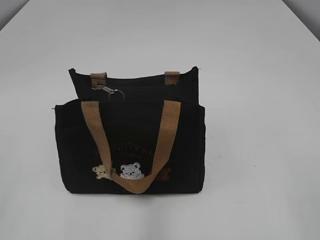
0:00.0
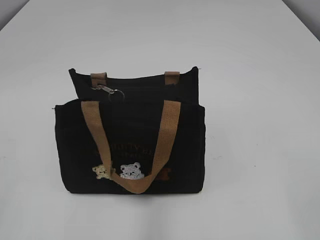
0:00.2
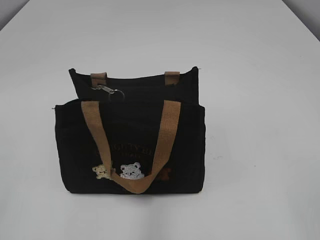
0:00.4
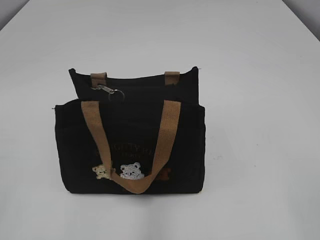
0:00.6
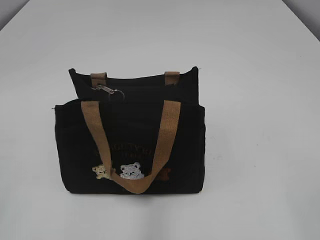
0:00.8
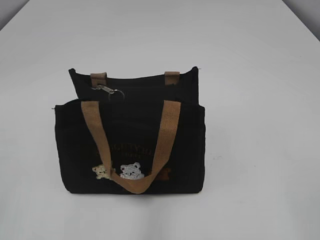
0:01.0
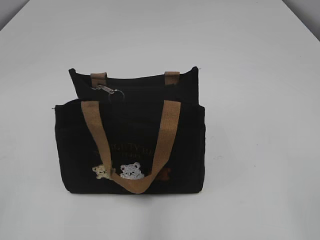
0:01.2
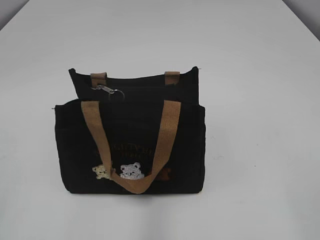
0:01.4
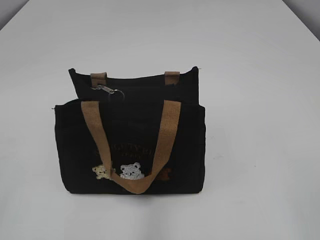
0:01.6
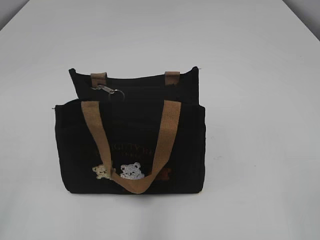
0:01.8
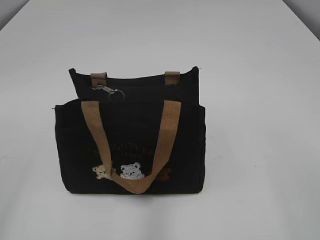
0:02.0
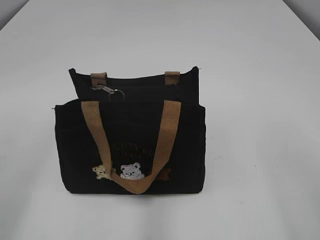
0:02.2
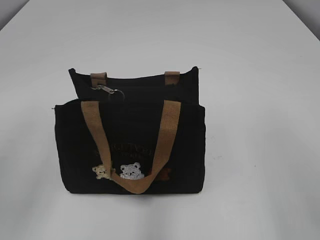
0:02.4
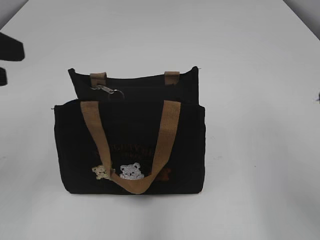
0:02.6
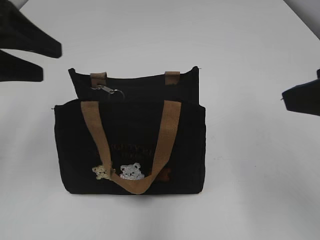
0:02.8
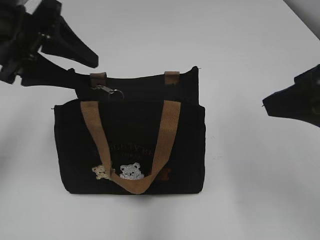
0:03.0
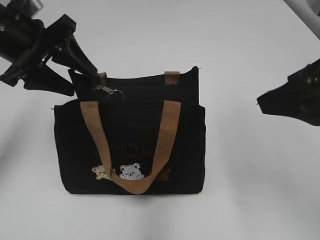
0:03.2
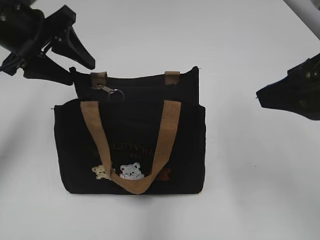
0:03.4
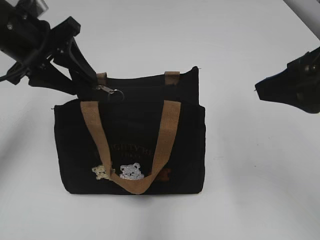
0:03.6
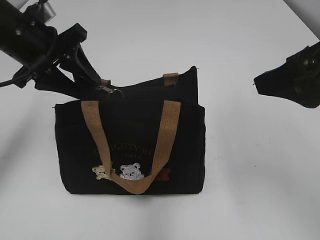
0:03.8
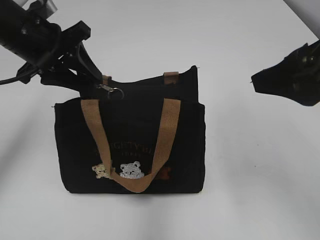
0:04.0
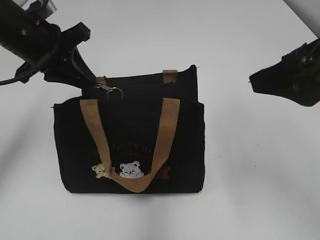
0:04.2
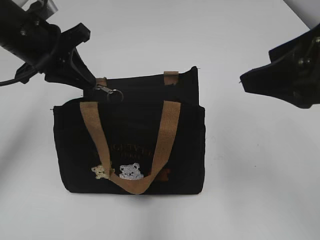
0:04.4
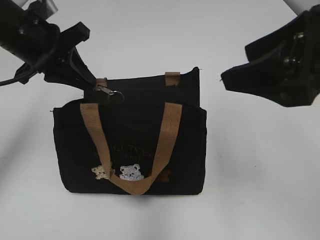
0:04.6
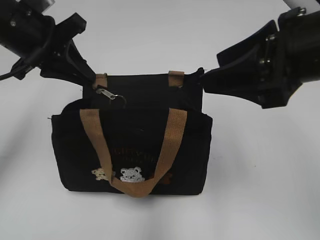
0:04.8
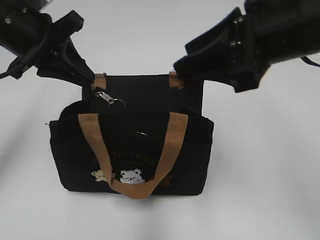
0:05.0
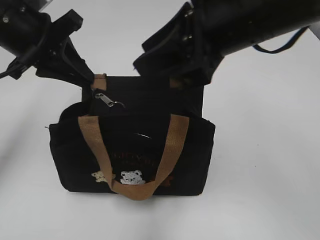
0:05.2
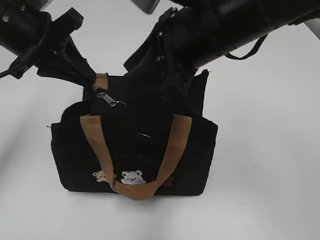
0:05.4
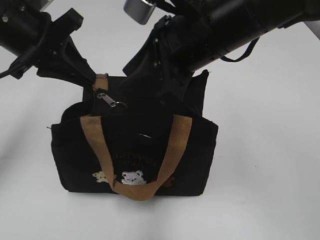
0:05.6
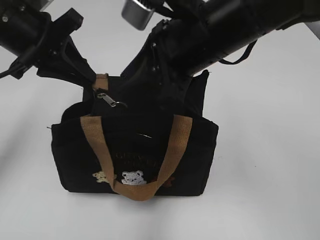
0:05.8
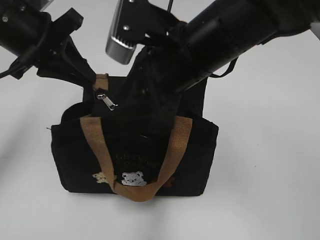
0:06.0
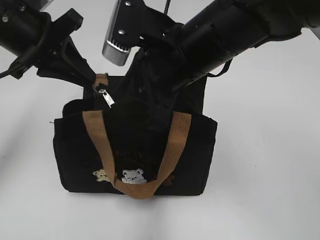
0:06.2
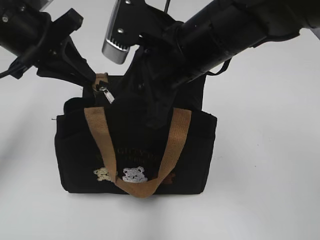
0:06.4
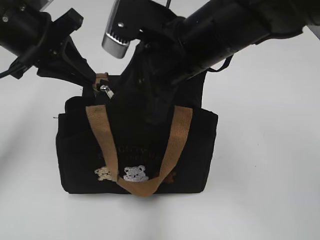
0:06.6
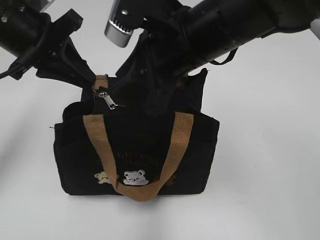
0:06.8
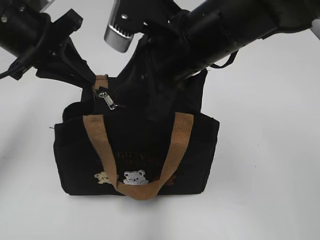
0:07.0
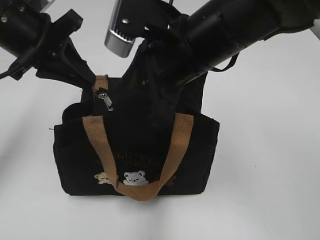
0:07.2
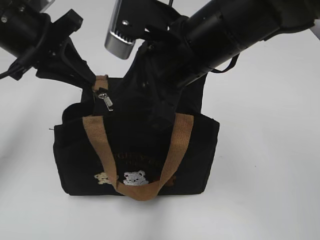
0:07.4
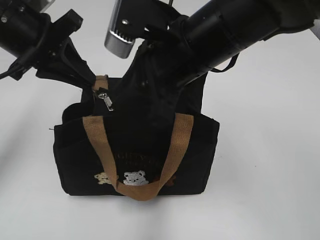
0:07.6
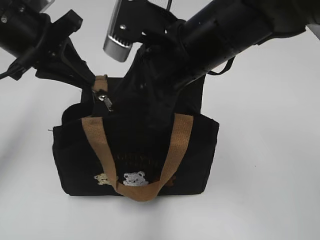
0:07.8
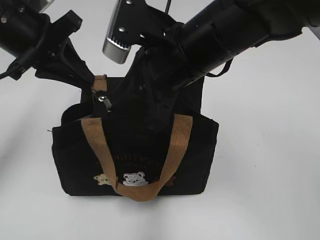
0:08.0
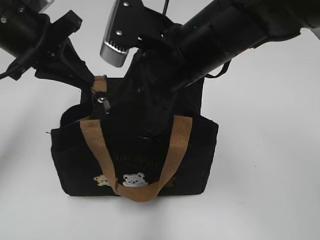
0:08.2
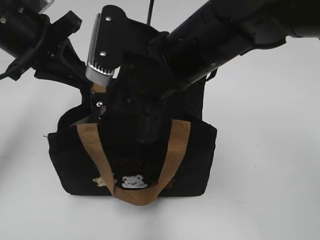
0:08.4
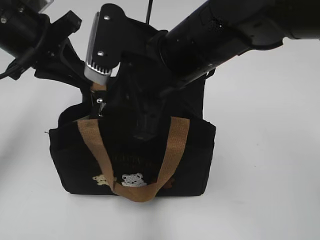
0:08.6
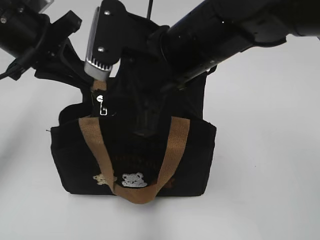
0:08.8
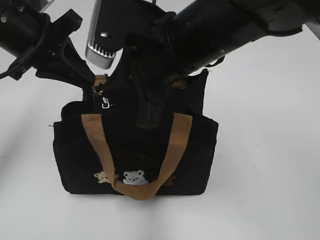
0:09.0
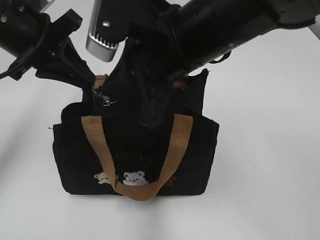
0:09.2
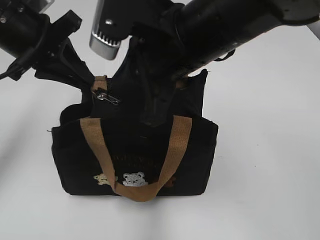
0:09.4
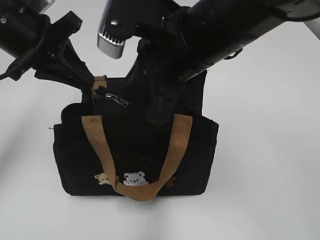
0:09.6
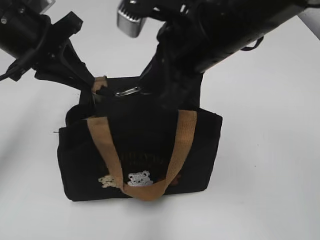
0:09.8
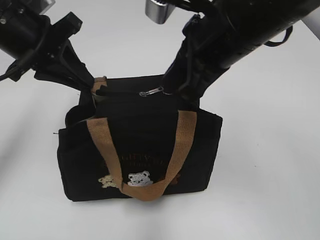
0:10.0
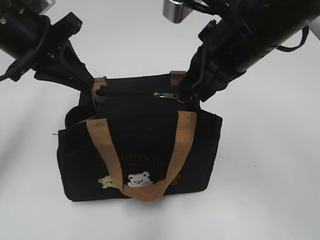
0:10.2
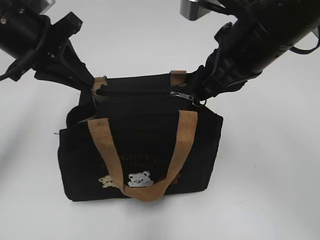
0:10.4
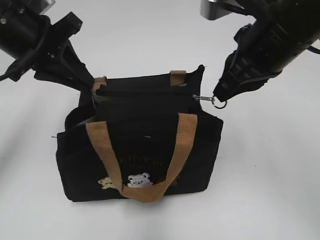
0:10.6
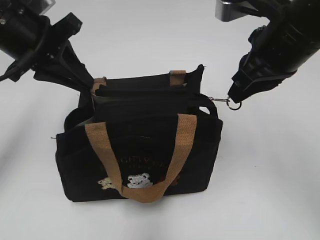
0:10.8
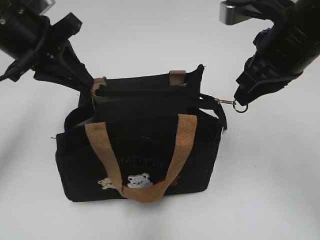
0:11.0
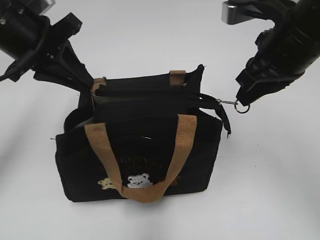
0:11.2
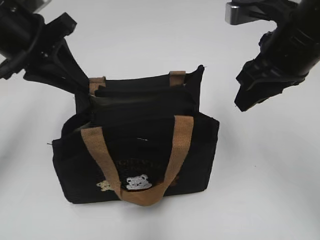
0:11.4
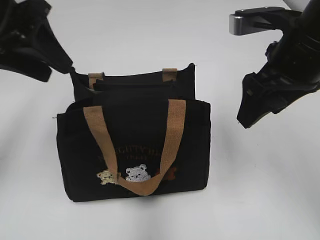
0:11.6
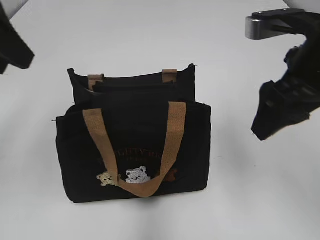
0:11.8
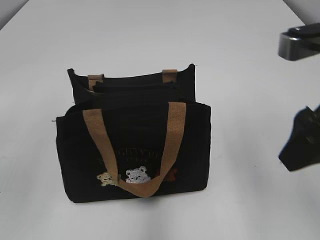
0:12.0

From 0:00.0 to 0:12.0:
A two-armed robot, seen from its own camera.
Step, from 0:00.0 to 0:11.2: Zip up the bag with your right hand.
From 0:01.6 to 0:03.0: The right gripper moves forward, about 20 cm; the left gripper shifts about 30 cm forward, and opens.
From 0:03.0 to 0:04.4: The left gripper shifts approximately 5 cm forward, and closes up.
From 0:04.4 to 0:06.0: The right gripper shifts about 15 cm to the left and forward, and closes.
From 0:06.0 to 0:07.6: The grippers move only a little.
From 0:07.6 to 0:09.0: The right gripper closes up.
From 0:09.0 to 0:10.4: The right gripper heads to the right, covering approximately 10 cm.
From 0:10.4 to 0:12.0: The left gripper moves backward, upward and to the left, roughly 15 cm, and opens, while the right gripper goes roughly 10 cm to the right and backward, and opens its fingers.

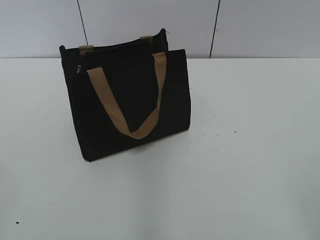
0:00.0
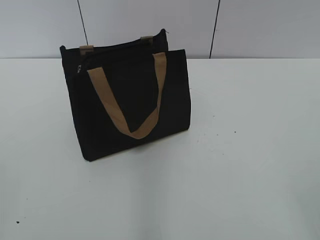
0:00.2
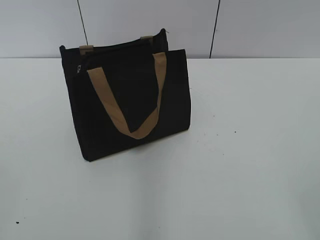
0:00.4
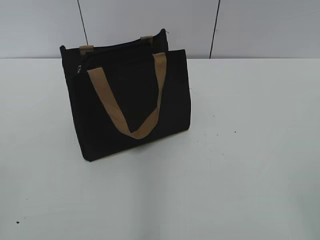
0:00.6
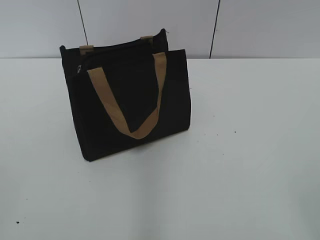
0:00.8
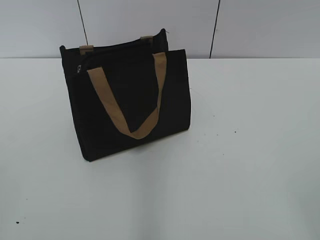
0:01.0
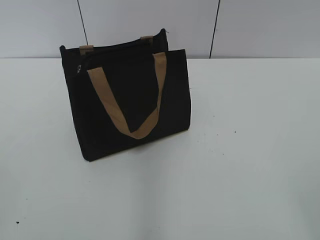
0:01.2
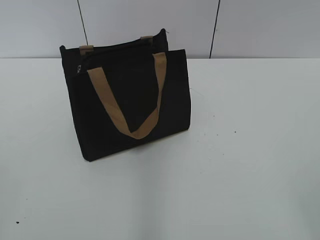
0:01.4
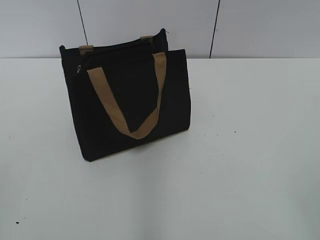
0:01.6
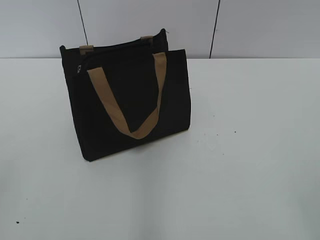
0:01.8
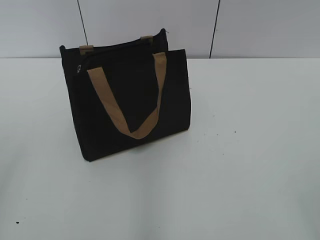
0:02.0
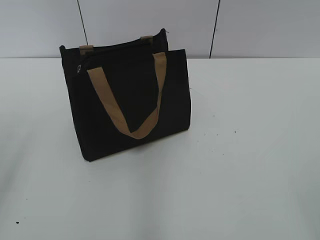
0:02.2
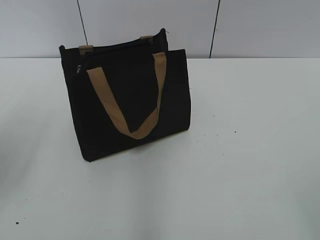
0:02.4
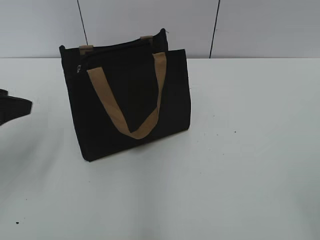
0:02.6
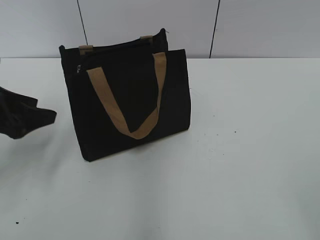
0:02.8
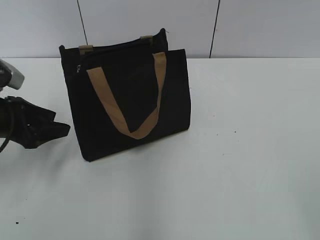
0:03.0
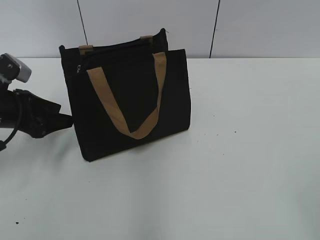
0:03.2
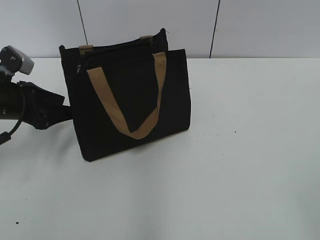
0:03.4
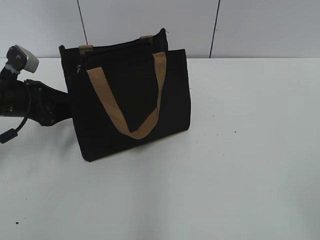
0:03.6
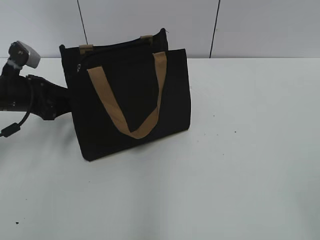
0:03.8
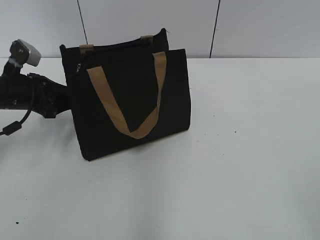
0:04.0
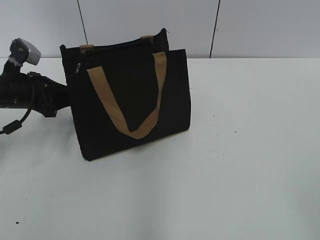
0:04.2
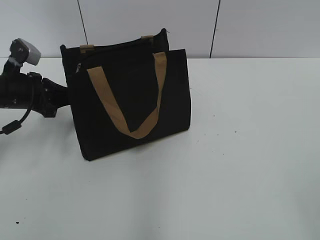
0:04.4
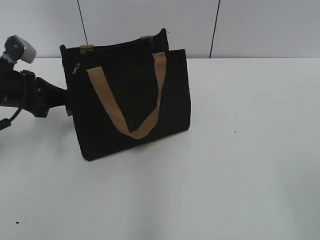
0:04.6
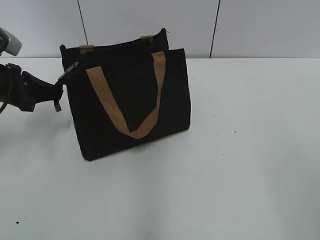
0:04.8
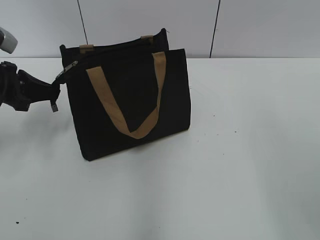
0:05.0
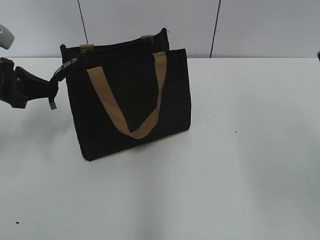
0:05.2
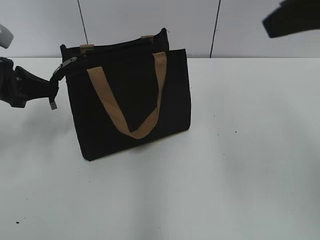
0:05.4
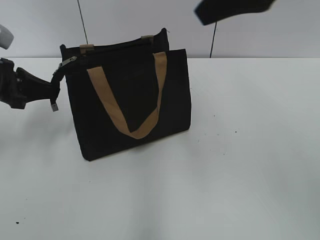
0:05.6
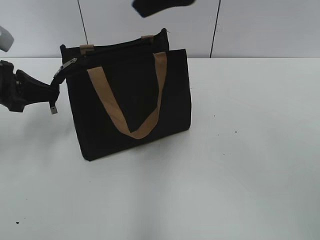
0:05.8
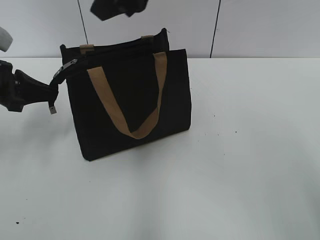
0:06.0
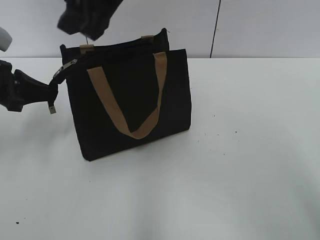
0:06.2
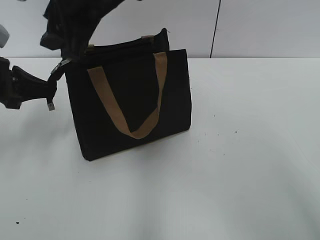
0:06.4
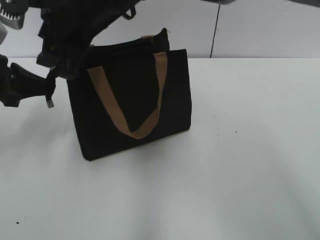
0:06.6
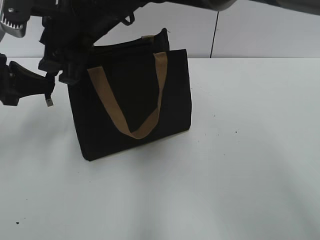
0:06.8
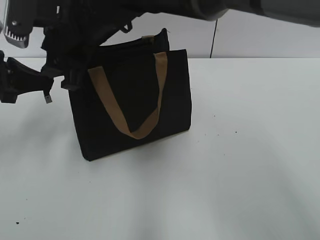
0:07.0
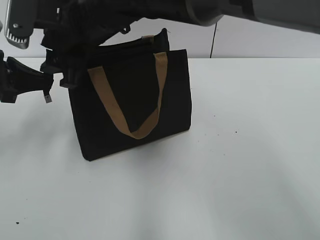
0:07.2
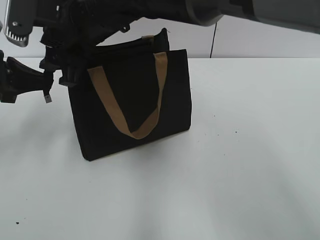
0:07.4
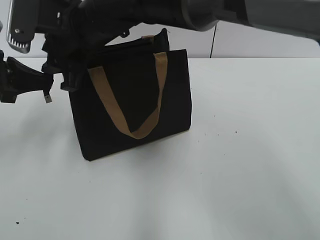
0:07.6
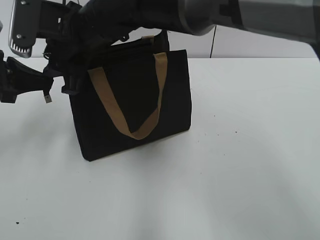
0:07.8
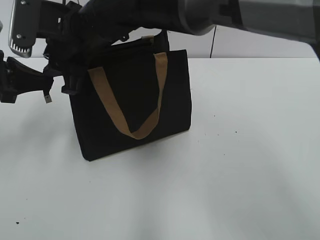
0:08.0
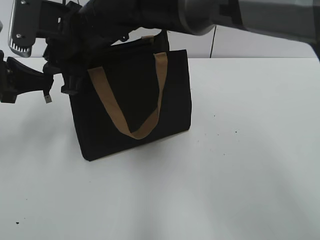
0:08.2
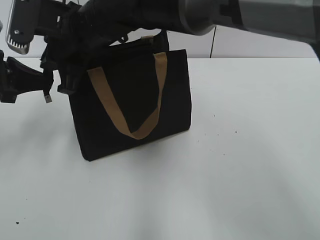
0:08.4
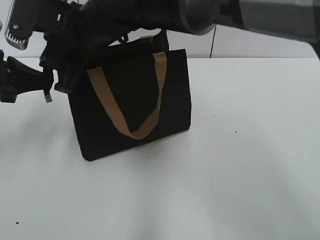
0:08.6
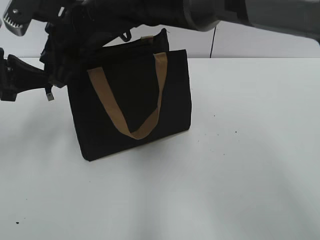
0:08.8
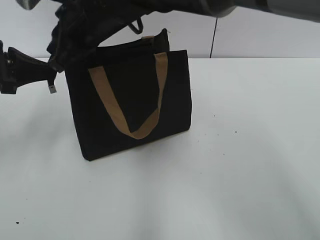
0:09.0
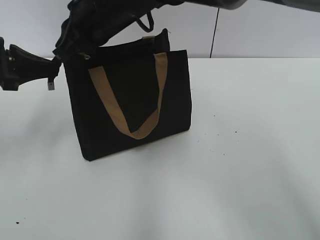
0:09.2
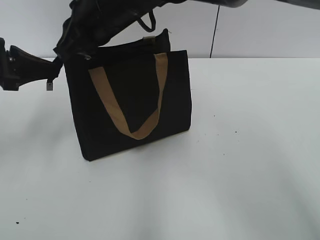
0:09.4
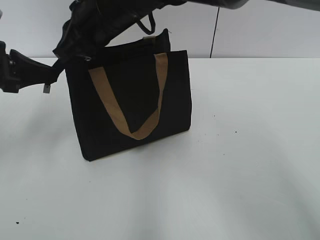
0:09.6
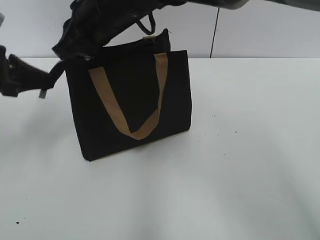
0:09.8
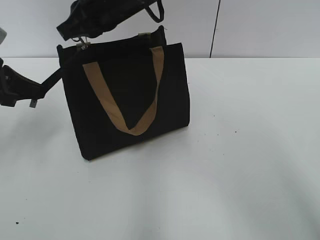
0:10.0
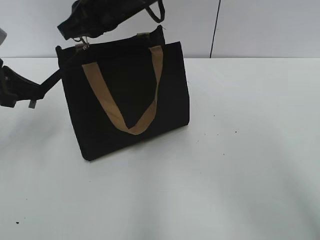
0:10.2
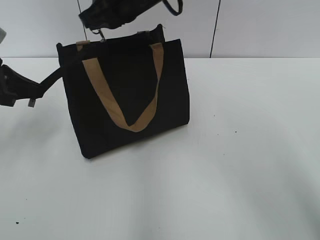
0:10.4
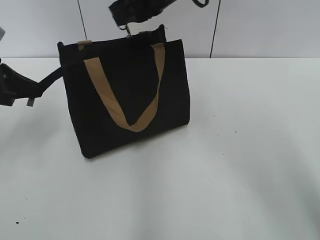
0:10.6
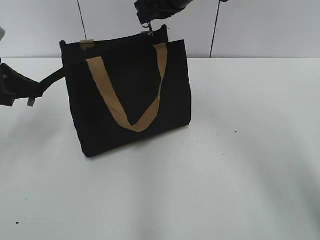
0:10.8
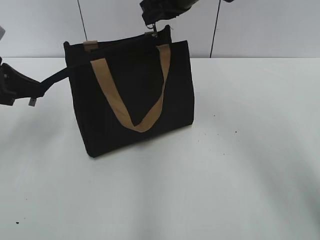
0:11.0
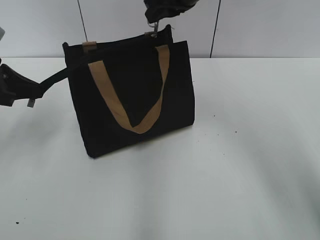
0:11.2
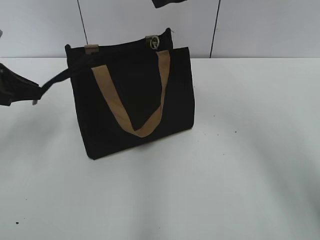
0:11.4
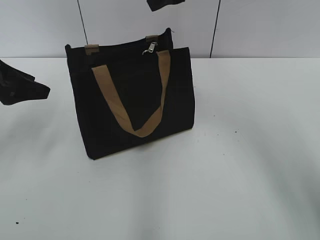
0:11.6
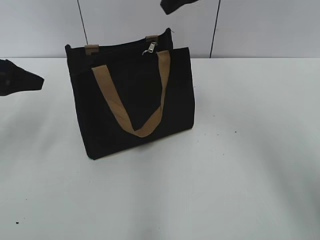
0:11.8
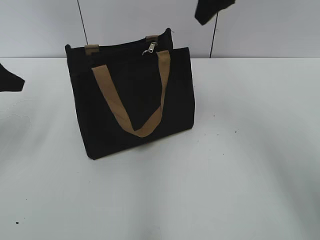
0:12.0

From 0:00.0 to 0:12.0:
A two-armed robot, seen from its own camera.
Step, from 0:00.0 to 0:11.2: Zip up the bag with your right hand.
From 0:01.6 to 0:03.0: The left gripper is displaced forward and downward by roughly 30 cm, and opens its fingers.
From 0:03.0 to 0:04.4: The left gripper moves forward, some 10 cm, and closes its fingers.
From 0:04.4 to 0:06.0: The right gripper travels forward and to the left by about 40 cm. The left gripper ends up approximately 5 cm from where it was.
From 0:06.0 to 0:07.6: The right gripper shifts about 15 cm downward and to the left.
From 0:07.6 to 0:09.0: The right gripper closes up.
From 0:09.0 to 0:10.4: The right gripper goes approximately 5 cm to the right.
From 0:10.4 to 0:12.0: The left gripper opens. Meanwhile the right gripper goes roughly 15 cm to the right and upward, and opens.
